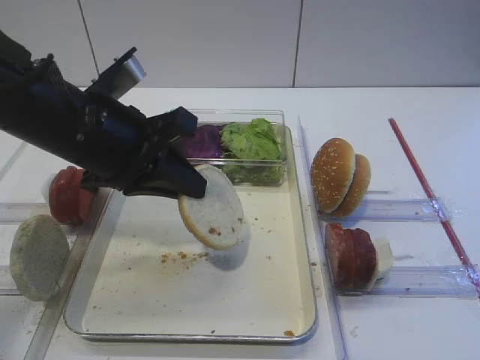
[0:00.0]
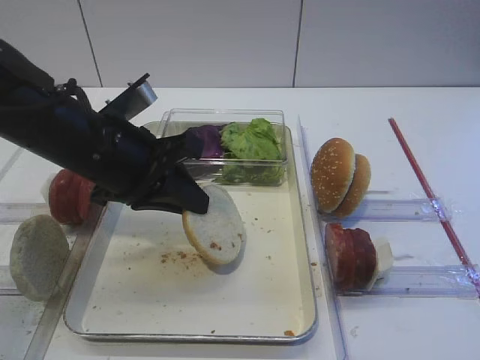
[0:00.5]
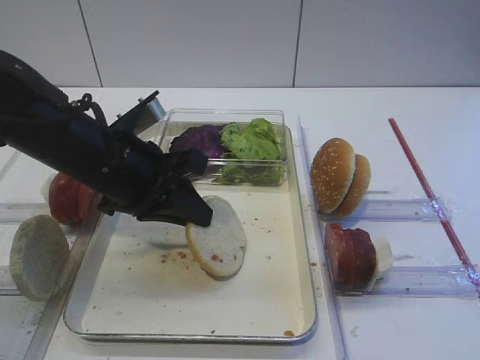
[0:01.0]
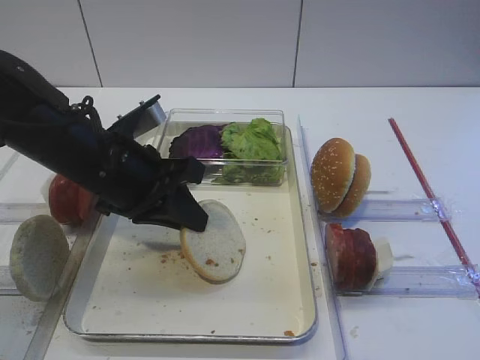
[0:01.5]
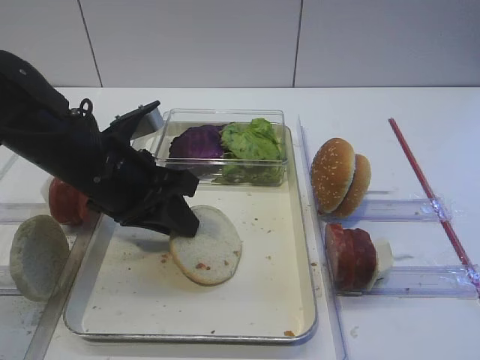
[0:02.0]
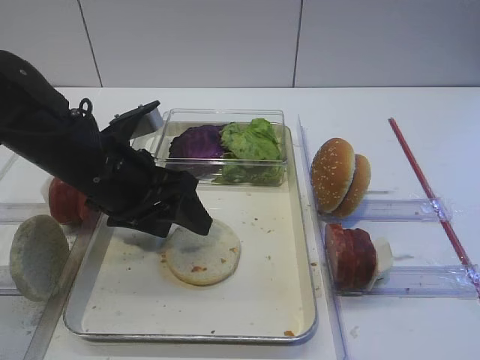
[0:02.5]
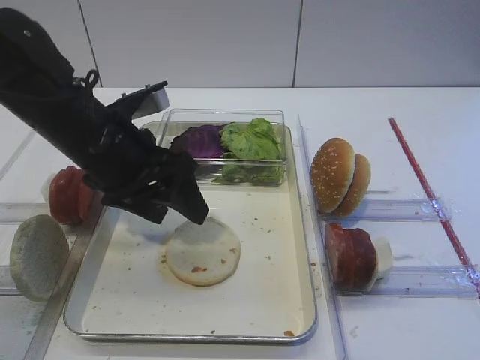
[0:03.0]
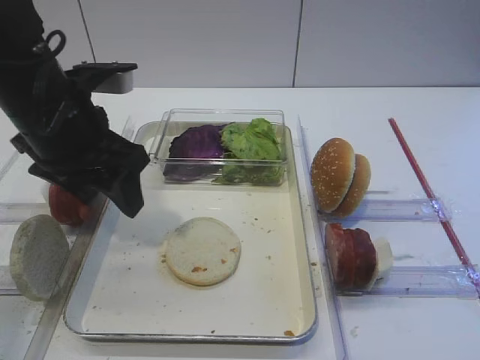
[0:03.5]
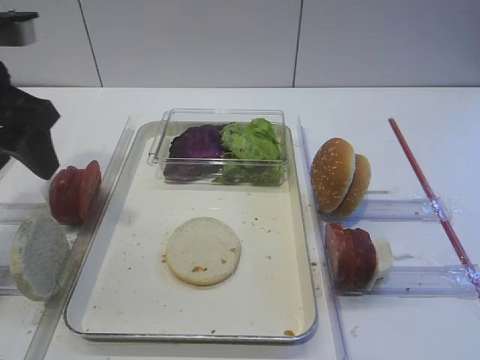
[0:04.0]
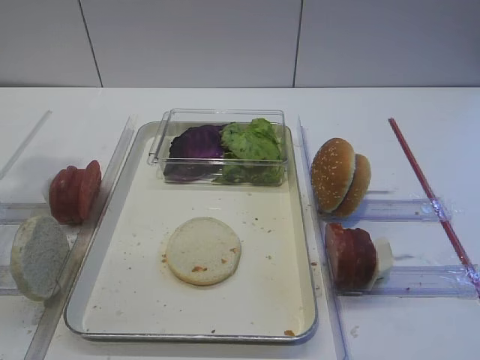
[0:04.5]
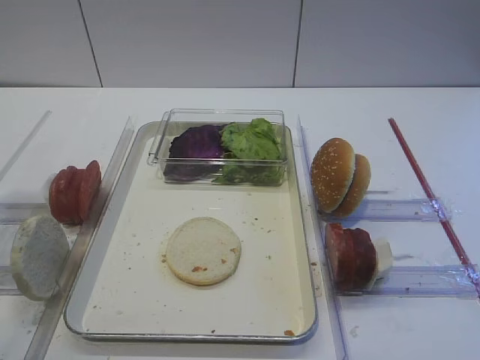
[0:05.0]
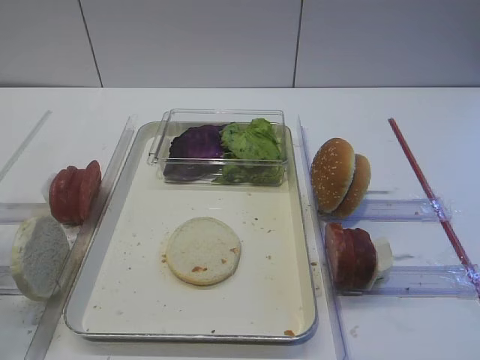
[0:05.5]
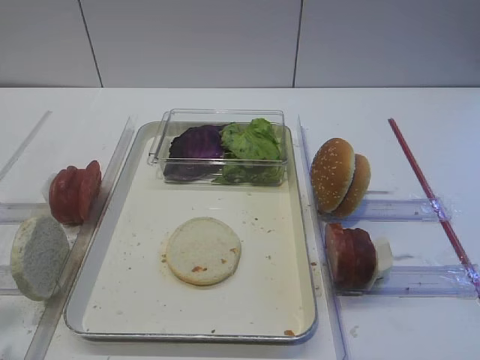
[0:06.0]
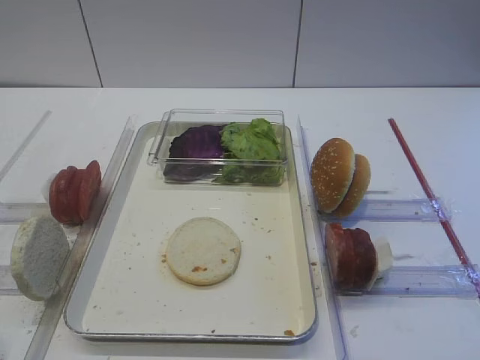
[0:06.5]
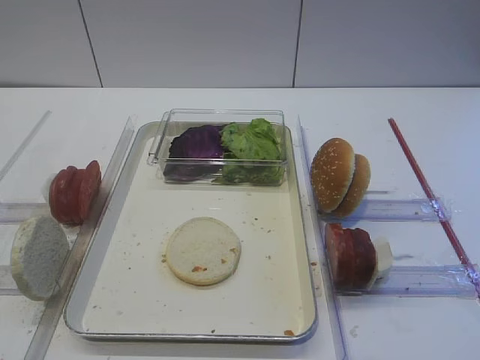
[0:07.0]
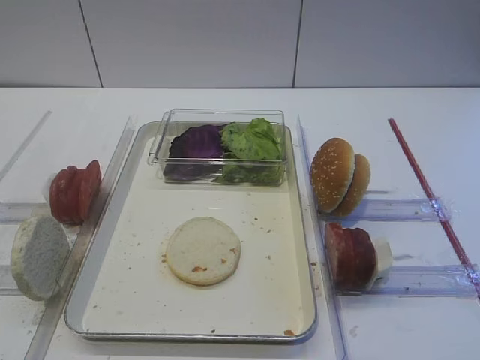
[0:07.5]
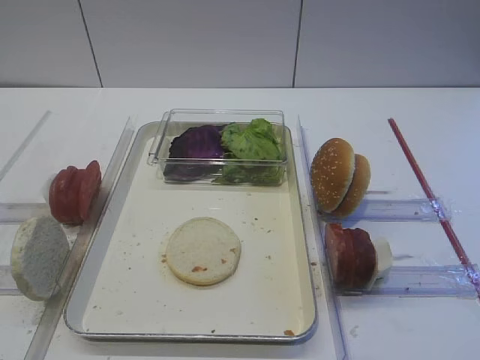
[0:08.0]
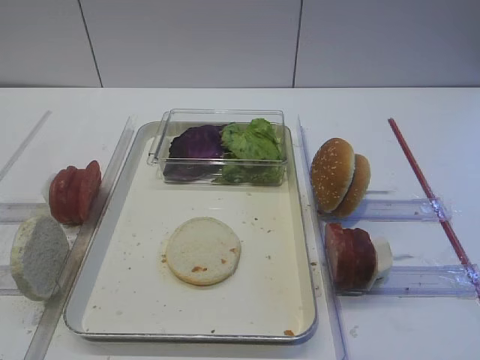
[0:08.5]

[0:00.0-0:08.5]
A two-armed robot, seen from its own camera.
Step, 0:00.0 to 0:03.0: Place the bread slice on the tray with the left gripper.
0:00.0 to 0:02.0: The left gripper shifts about 5 cm downward.
0:02.0 to 0:04.0: The left gripper travels upward and to the left by about 15 cm, and opens up.
0:04.0 to 0:06.5: The left gripper heads backward, covering roughly 25 cm.

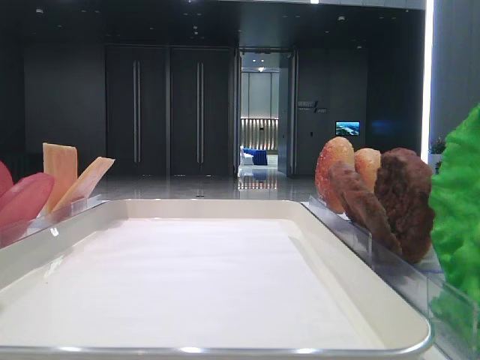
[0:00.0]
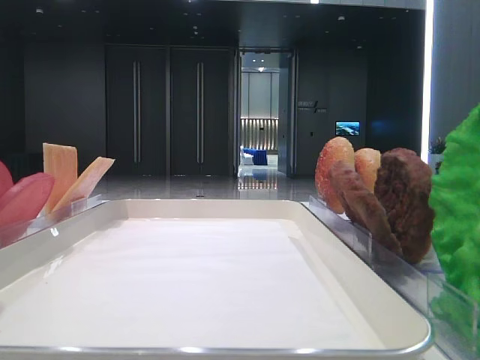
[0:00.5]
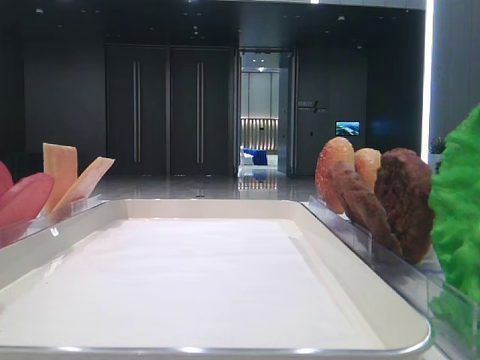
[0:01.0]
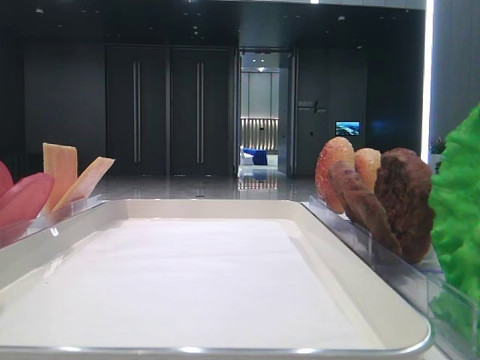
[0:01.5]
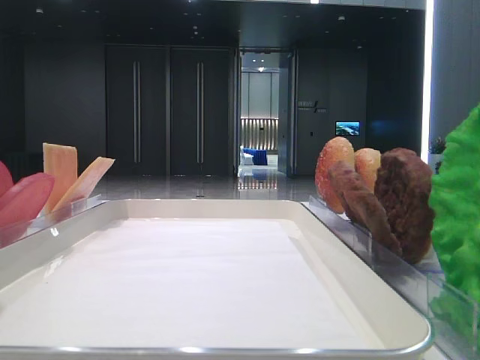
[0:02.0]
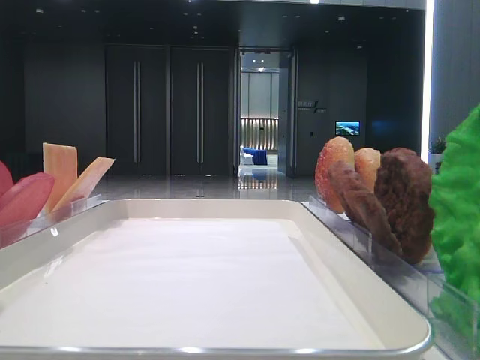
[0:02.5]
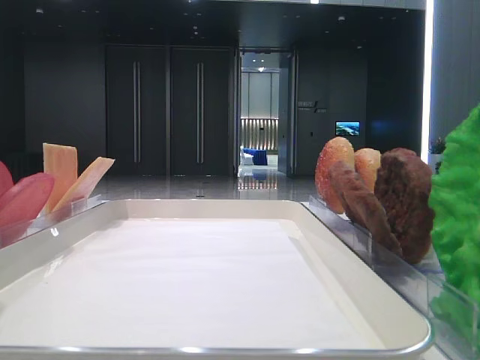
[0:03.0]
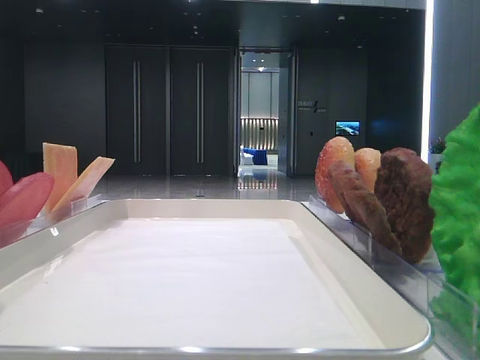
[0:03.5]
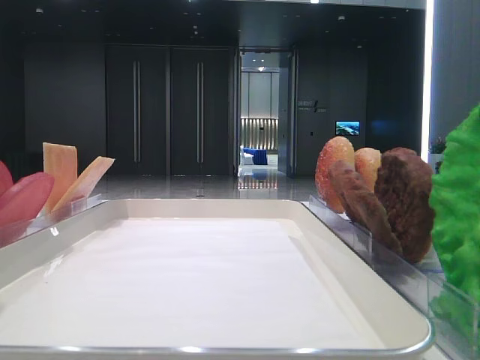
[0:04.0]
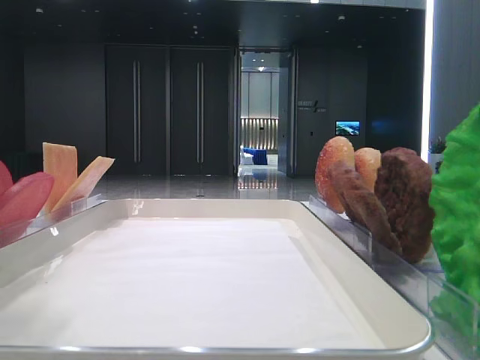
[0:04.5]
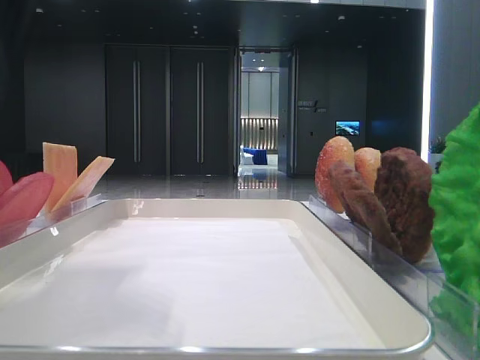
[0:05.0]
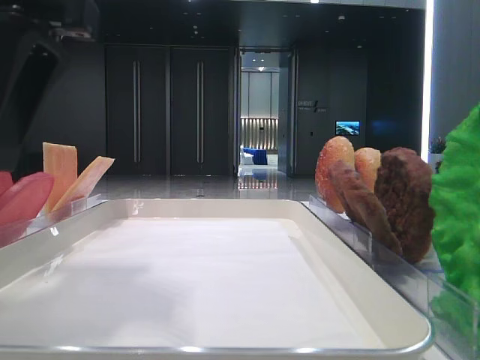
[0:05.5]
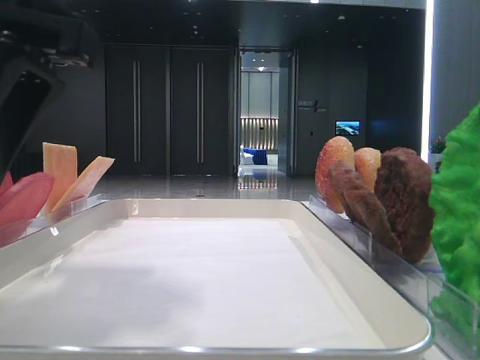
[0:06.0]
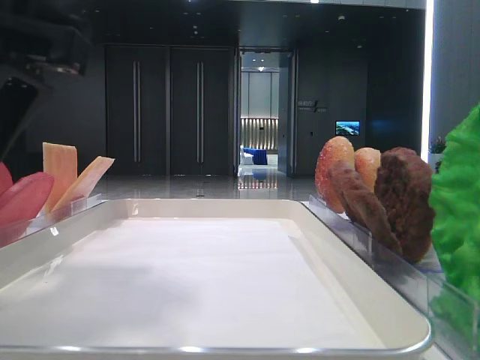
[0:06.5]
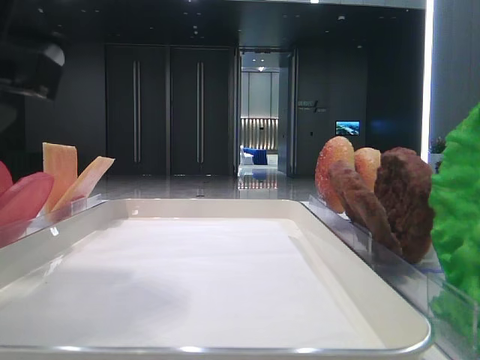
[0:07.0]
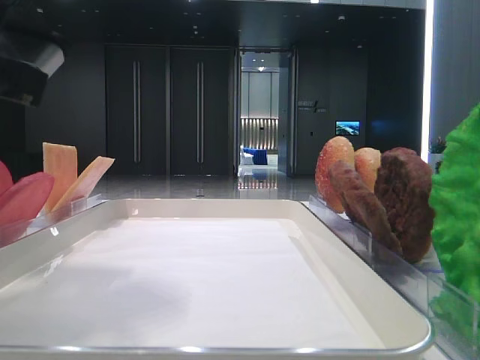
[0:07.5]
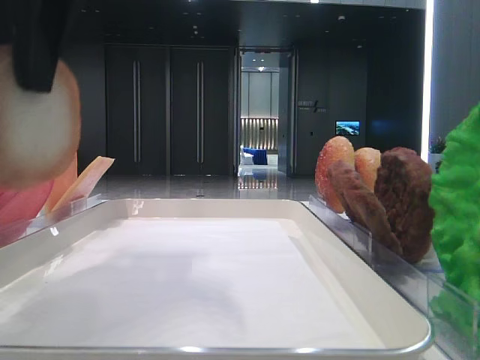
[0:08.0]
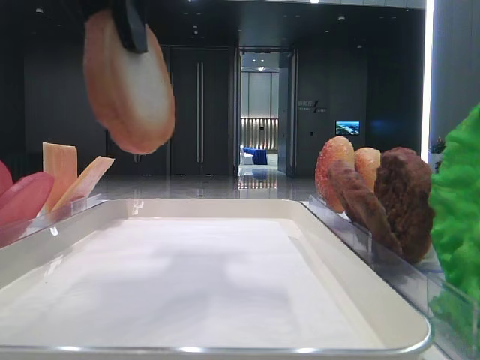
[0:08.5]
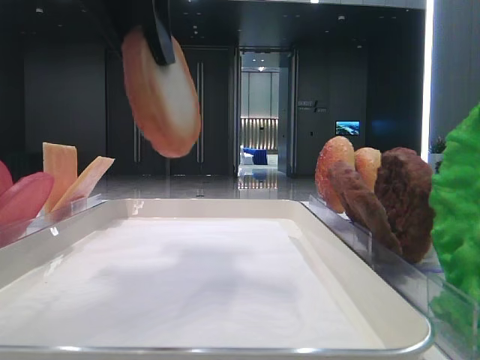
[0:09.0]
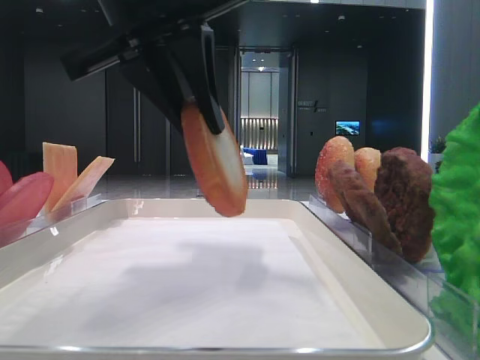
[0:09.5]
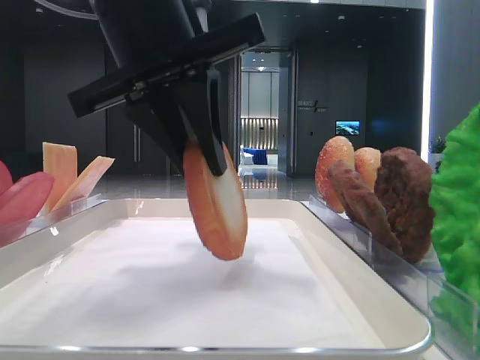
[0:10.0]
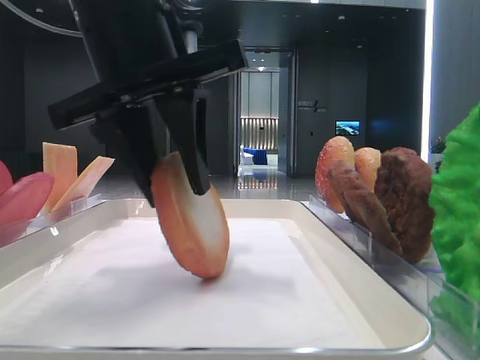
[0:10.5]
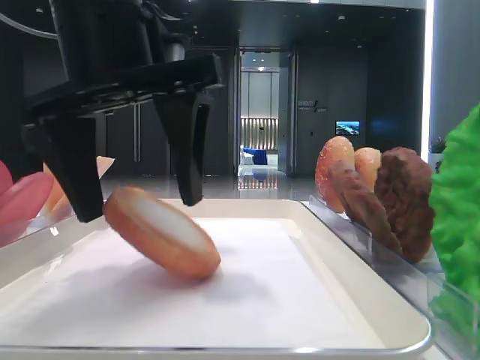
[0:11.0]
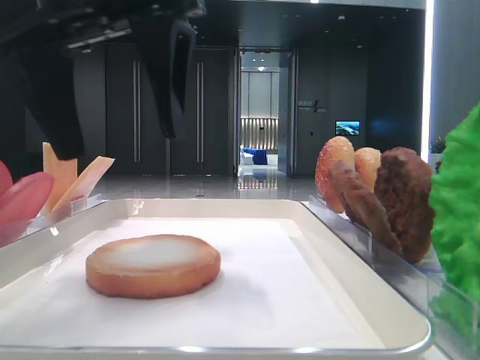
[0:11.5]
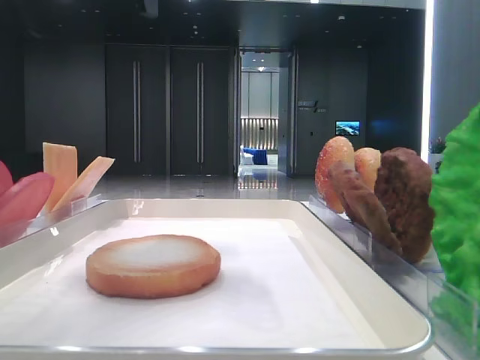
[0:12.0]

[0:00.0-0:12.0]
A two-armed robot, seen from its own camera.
Step, 0:00.0 to 0:06.0: Pick up the bottom bread with the left hand.
Step, 0:06.5 to 0:11.0: Place the bread on the tray with the left hand.
0:04.0 to 0:06.0: The left gripper is displaced to the right and downward by about 20 cm.
0:06.0 to 0:08.0: The left gripper travels upward by approximately 5 cm, and closes its fingers.
0:08.0 to 0:10.0: The left gripper heads to the right and downward, covering about 10 cm.
0:10.0 to 0:12.0: The left gripper moves upward, some 10 cm, and opens up.

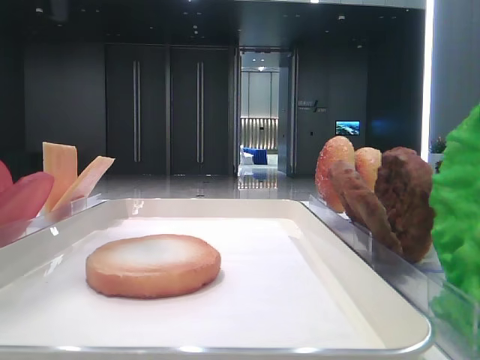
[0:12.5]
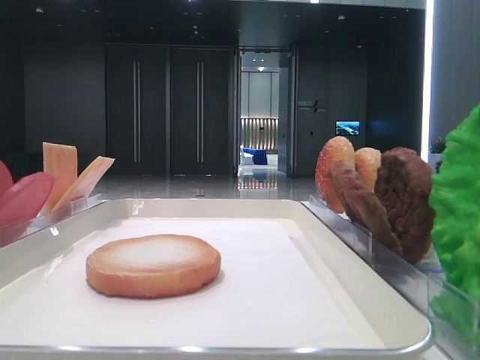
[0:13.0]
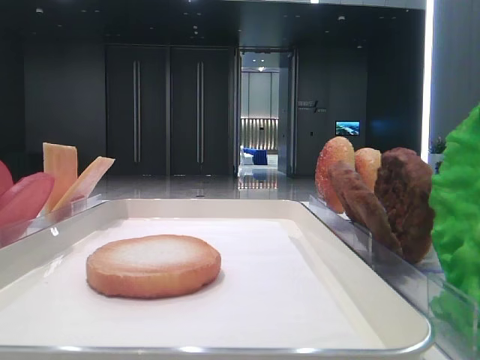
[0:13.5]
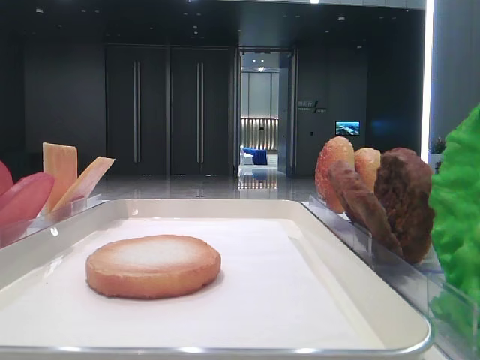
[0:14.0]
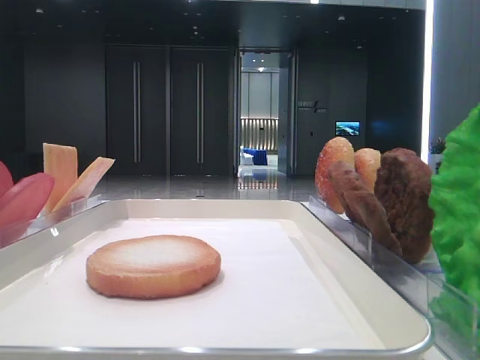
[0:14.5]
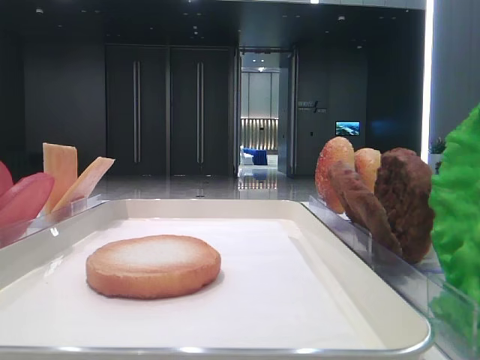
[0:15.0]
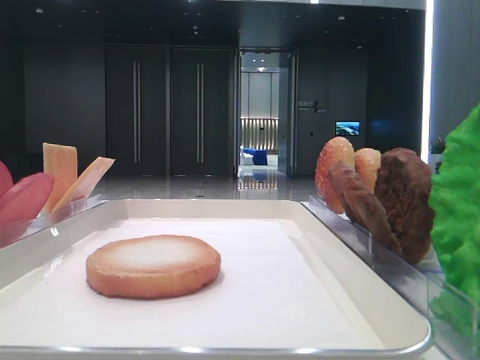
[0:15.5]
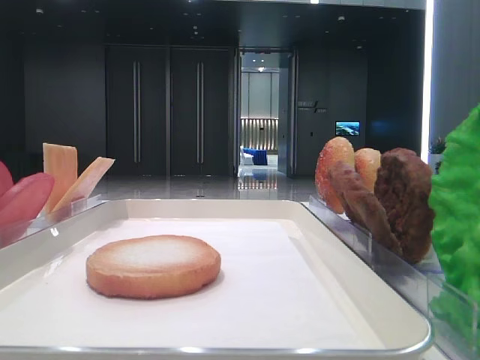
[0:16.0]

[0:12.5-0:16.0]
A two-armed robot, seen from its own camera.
0:12.5 to 0:14.5: The left gripper heads backward and to the left, covering approximately 30 cm.
0:14.5 to 0:16.0: Both grippers stay put.

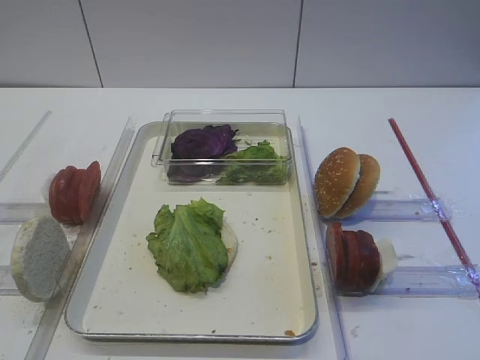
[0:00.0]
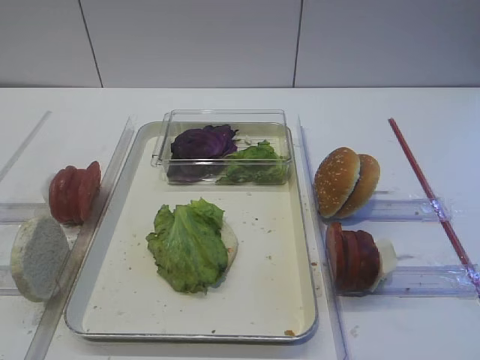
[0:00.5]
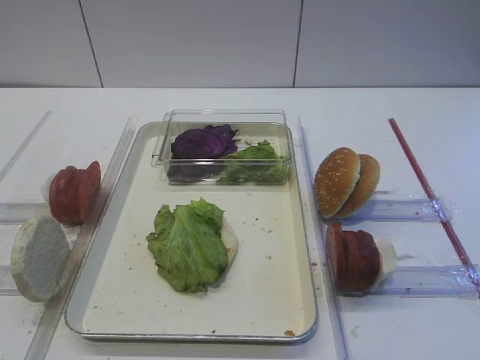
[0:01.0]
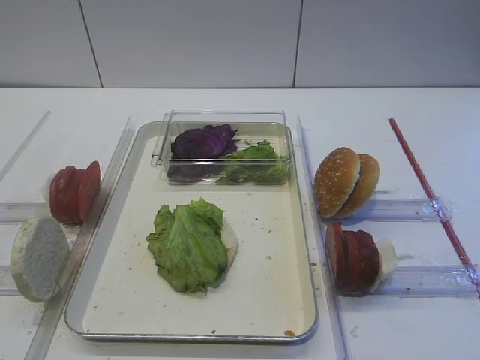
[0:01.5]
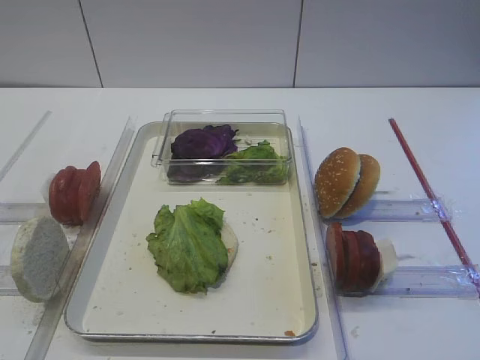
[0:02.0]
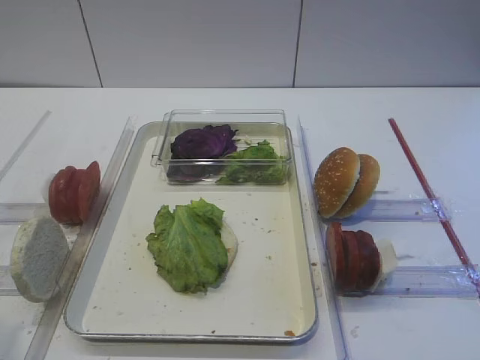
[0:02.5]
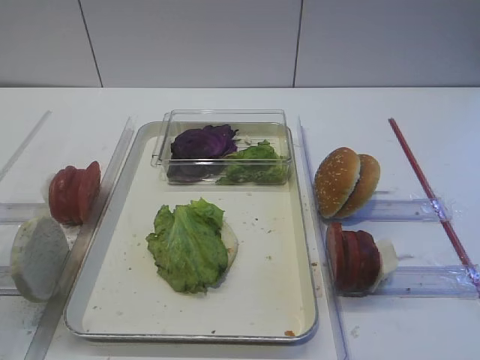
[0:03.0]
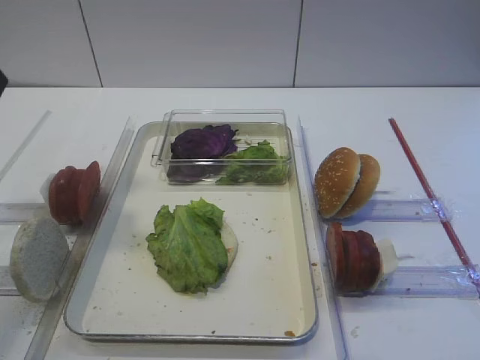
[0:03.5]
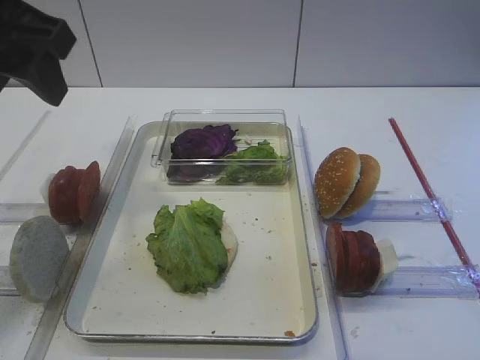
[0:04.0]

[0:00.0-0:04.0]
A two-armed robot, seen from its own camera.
0:02.0 to 0:04.0: The left gripper travels forward and upward by some 30 cm.
